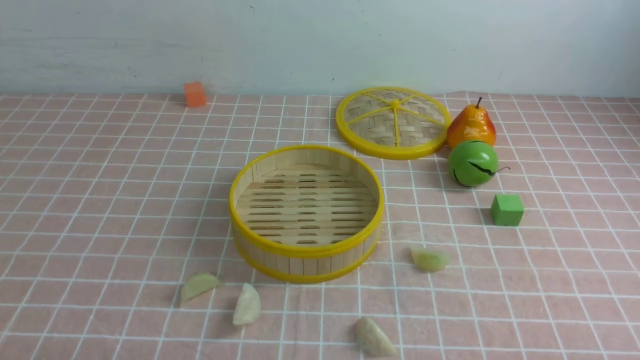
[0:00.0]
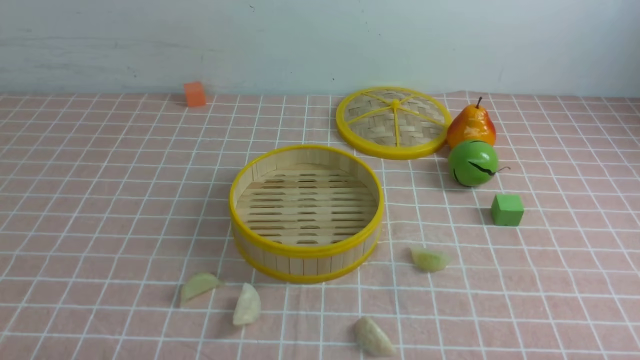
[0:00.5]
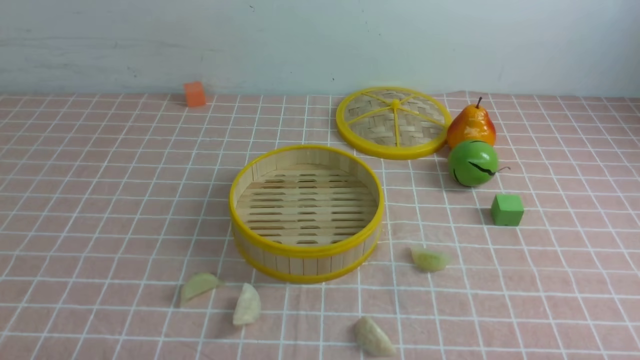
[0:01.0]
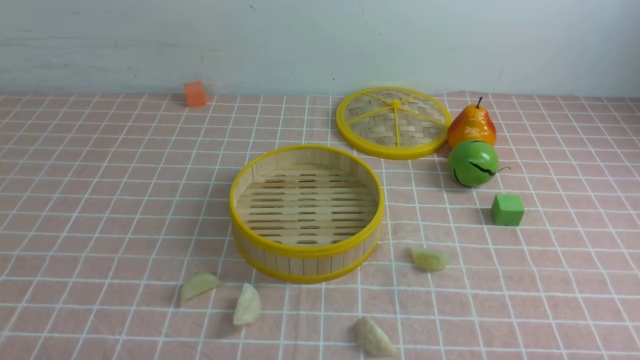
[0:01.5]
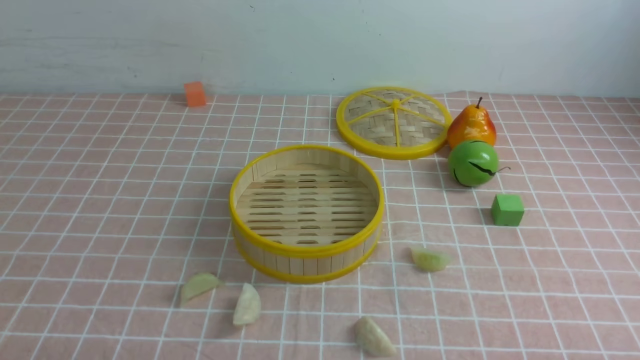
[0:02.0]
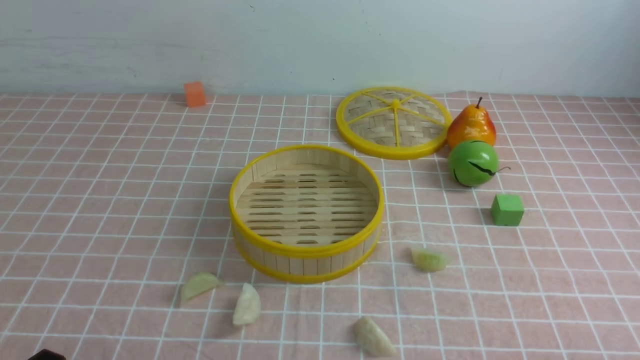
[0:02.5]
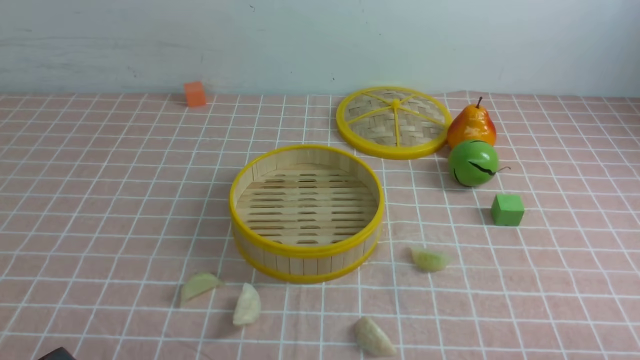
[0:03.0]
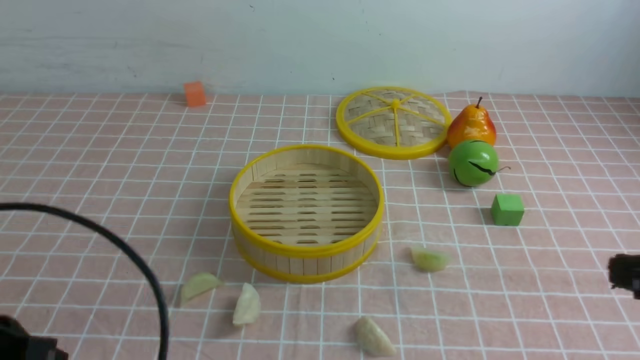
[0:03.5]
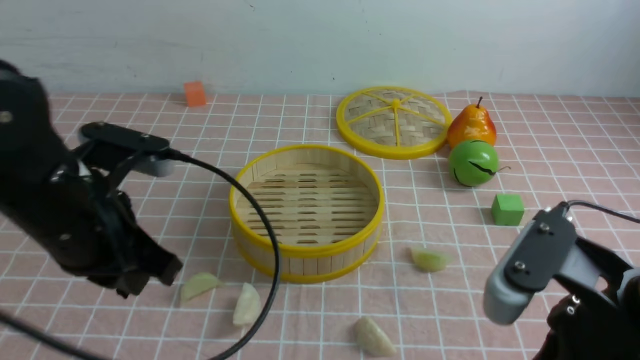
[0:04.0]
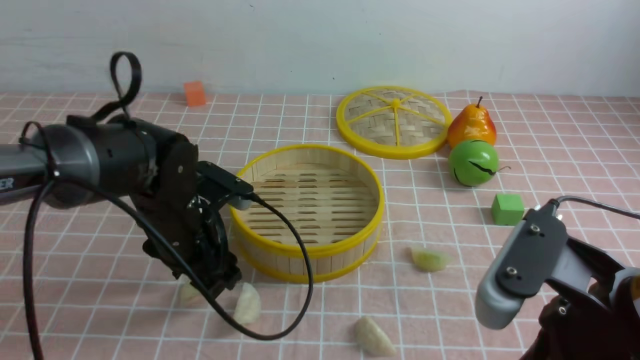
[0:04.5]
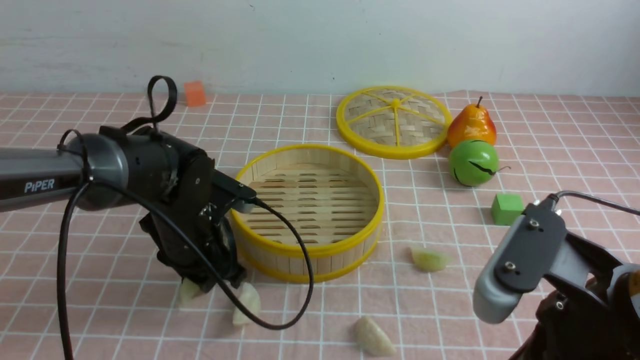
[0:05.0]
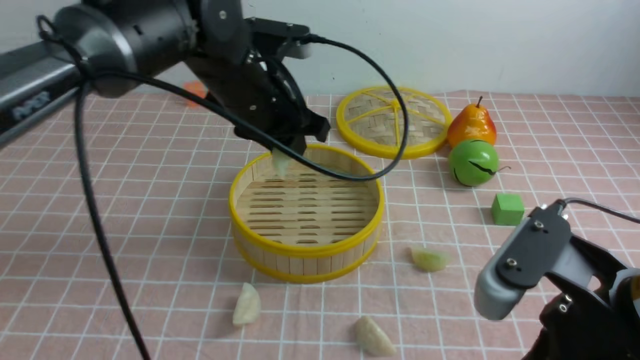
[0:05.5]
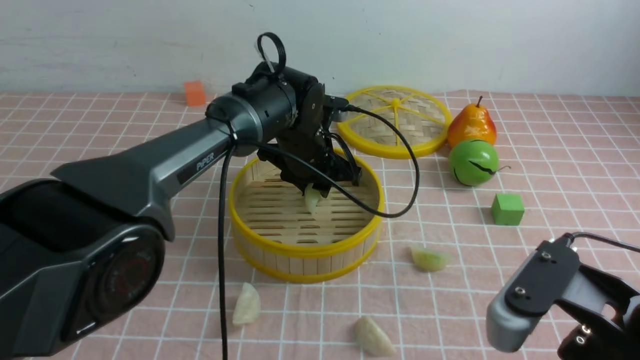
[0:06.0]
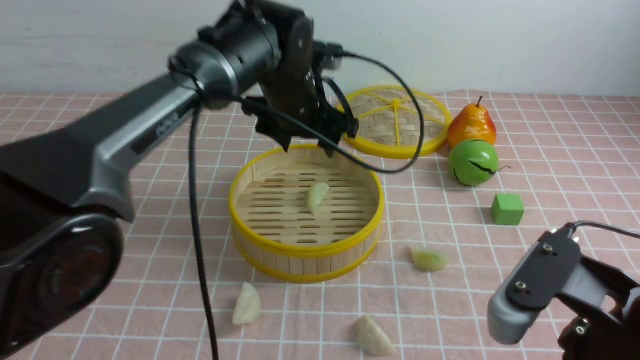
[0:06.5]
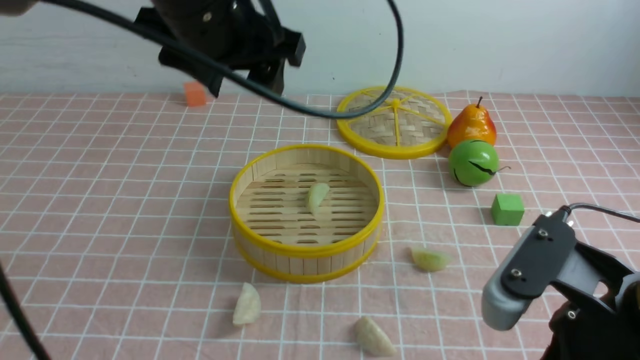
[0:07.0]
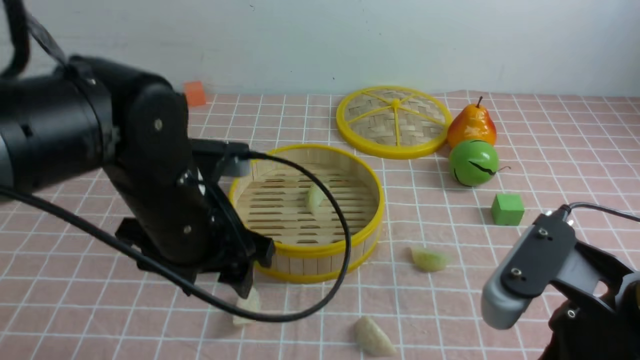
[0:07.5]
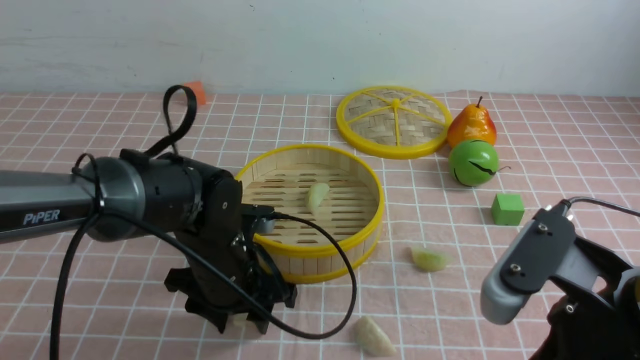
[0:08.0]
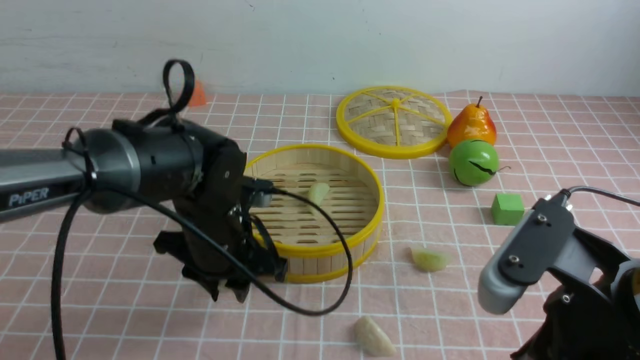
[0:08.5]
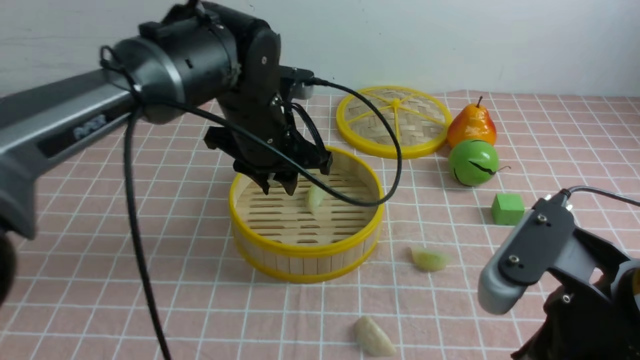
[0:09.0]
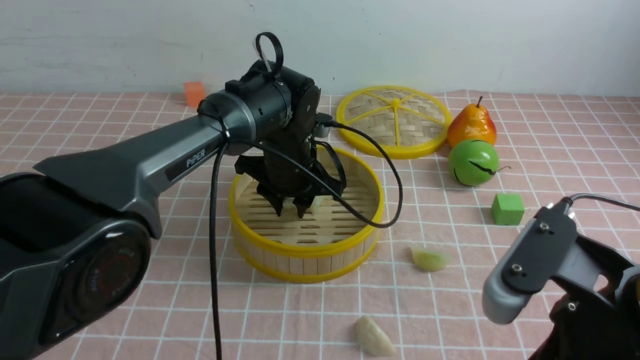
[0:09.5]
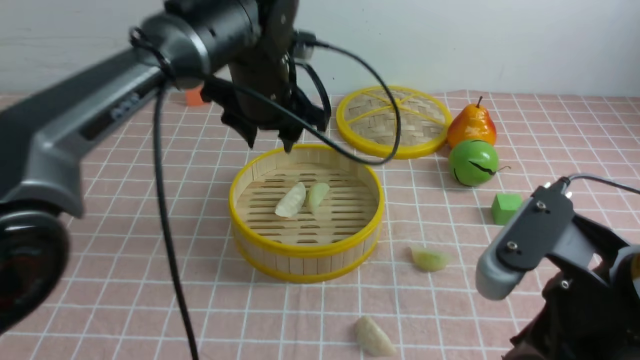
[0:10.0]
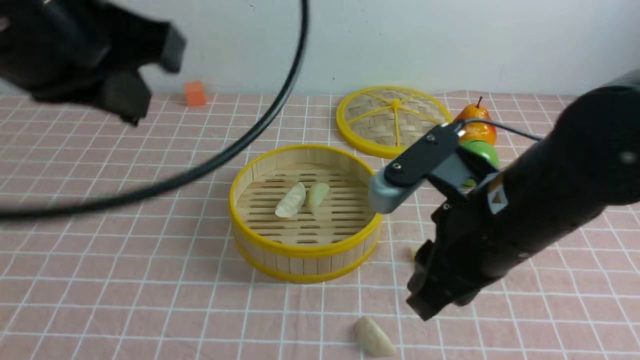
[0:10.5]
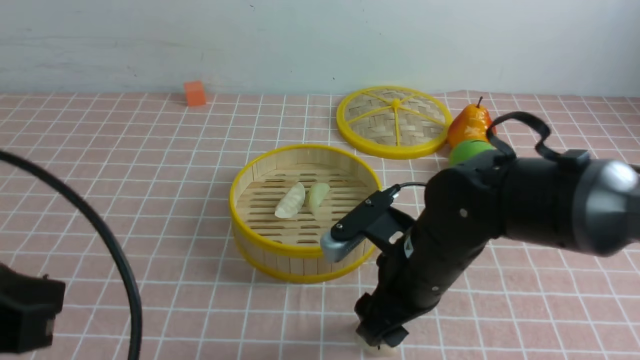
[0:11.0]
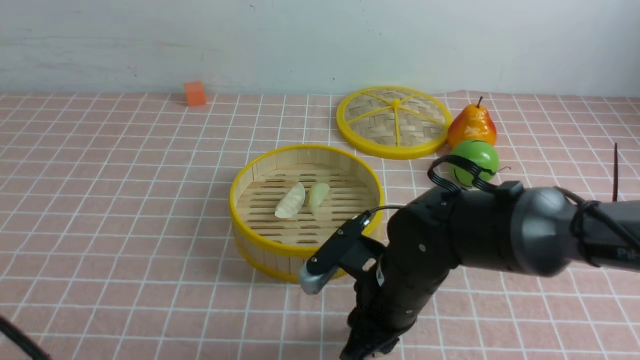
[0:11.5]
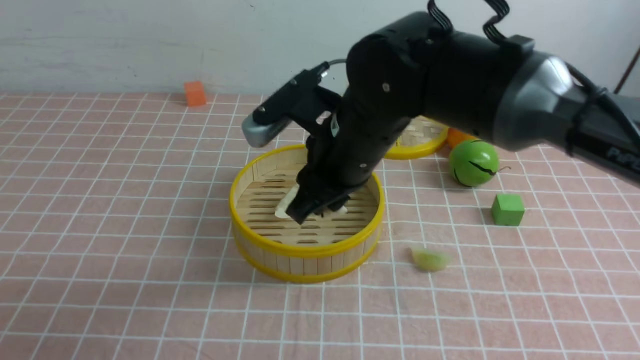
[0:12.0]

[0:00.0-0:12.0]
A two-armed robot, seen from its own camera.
Task of the whole recording: put the dumplings into the steamer on the table with the pink tablecloth.
Step, 0:00.0 to 0:05.0: use the left arm to grab a dumpling.
Step, 0:05.5 to 0:06.0: use the left arm to put the dumpling into the steamer.
Step, 0:06.5 to 0:08.0: use the left arm to grab a dumpling.
Step, 0:08.5 to 0:09.5: use the left arm to put the dumpling into the steamer.
Step, 0:10.0 to 0:11.5: use the right arm to grab a dumpling.
0:02.0 to 0:04.0: The left gripper heads forward, upward and to the right, covering about 25 cm. The right gripper is displaced upward, to the left and forward by roughly 20 cm, and closes up.
0:04.0 to 0:06.0: The left gripper shifts some 30 cm forward and to the right, and opens up.
0:06.0 to 0:08.0: The left gripper shifts roughly 15 cm backward and to the left, and moves some 20 cm upward and comes back.
0:08.0 to 0:10.0: The left gripper travels forward and upward by about 15 cm.
0:10.0 to 0:12.0: The right gripper shifts roughly 20 cm forward and to the left, and opens and closes again; the left gripper travels backward and to the left by about 40 cm, and closes its fingers.

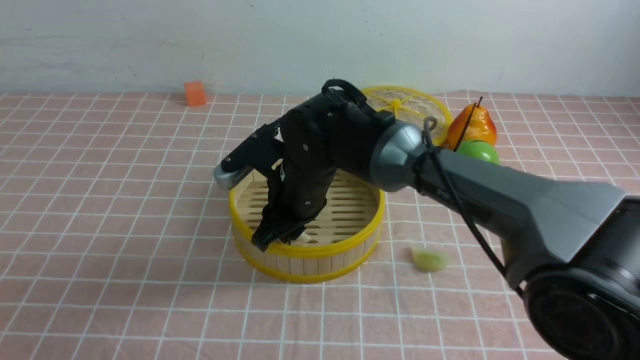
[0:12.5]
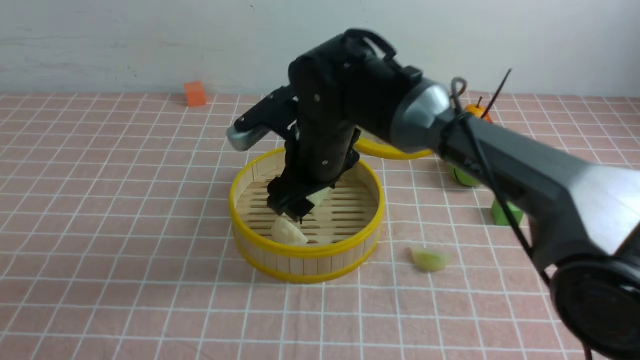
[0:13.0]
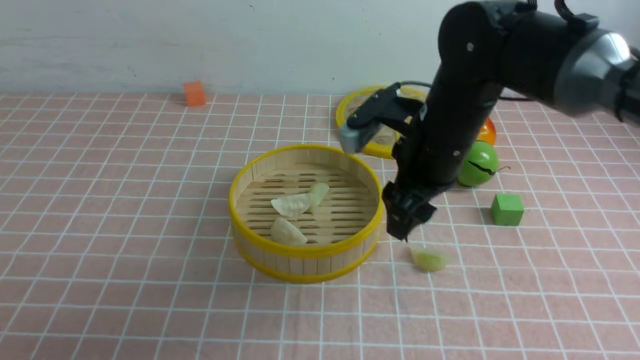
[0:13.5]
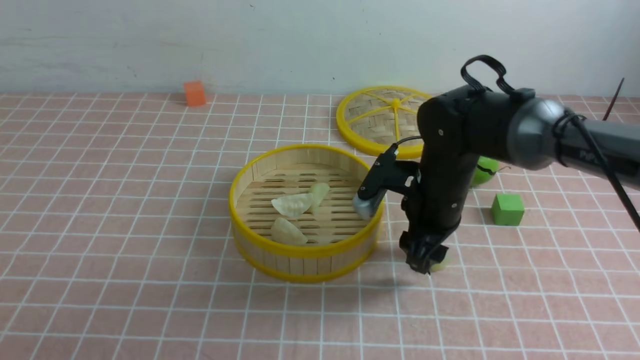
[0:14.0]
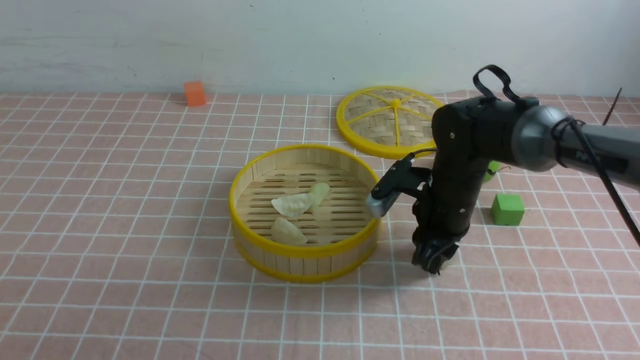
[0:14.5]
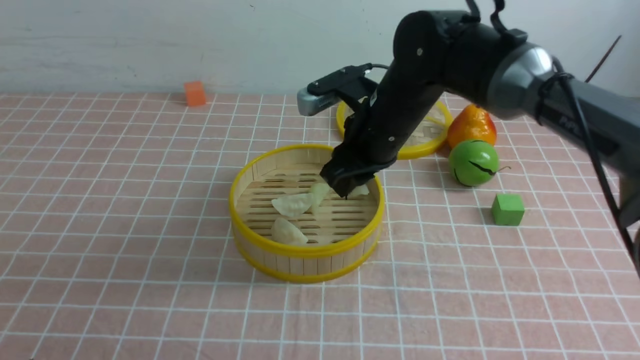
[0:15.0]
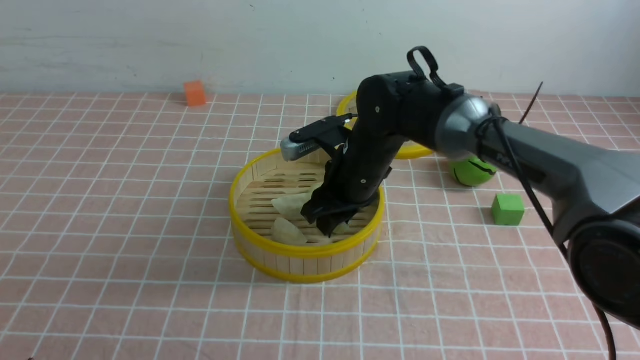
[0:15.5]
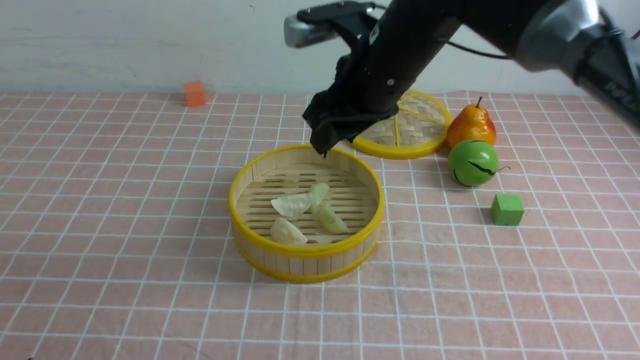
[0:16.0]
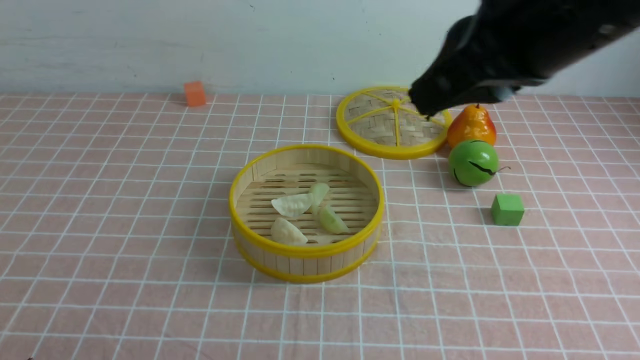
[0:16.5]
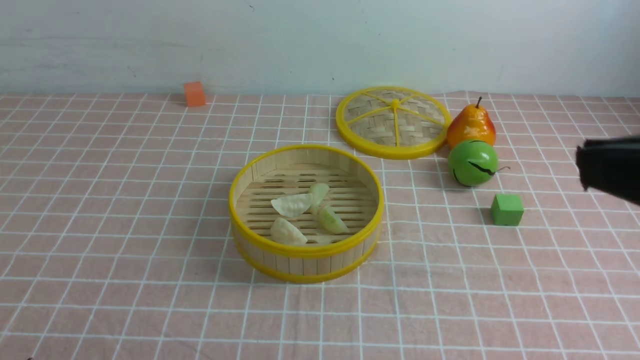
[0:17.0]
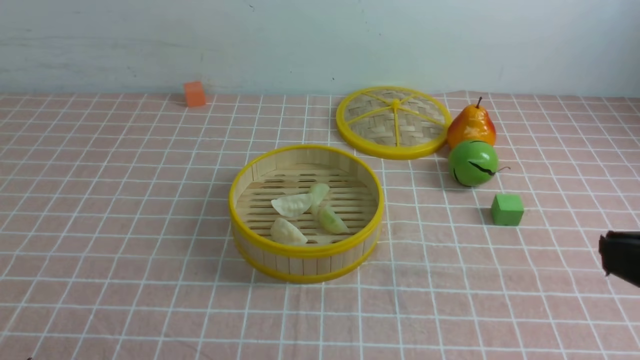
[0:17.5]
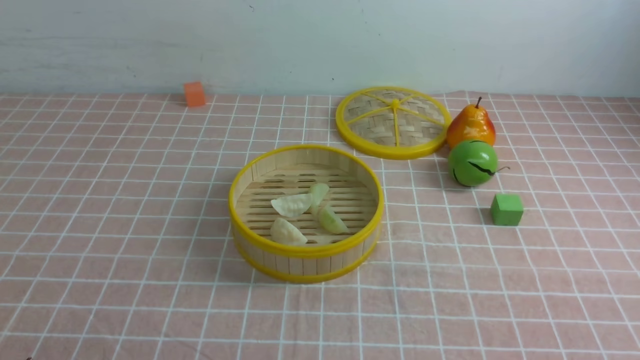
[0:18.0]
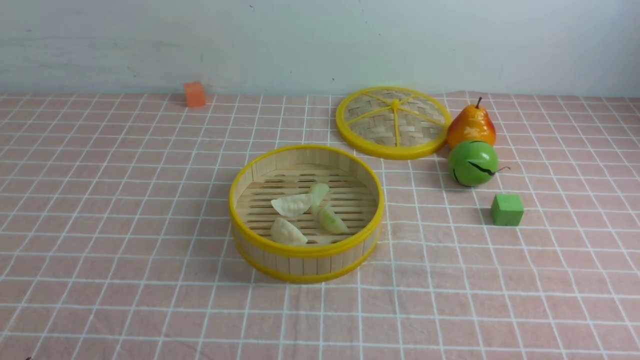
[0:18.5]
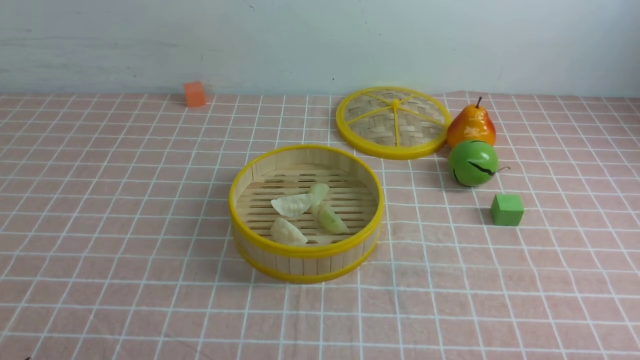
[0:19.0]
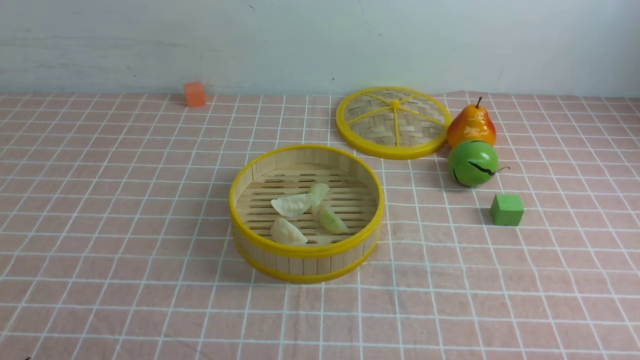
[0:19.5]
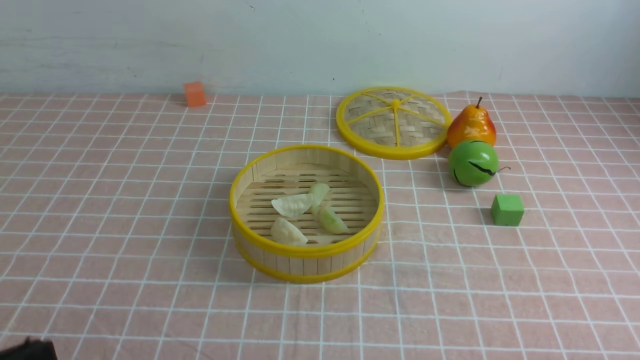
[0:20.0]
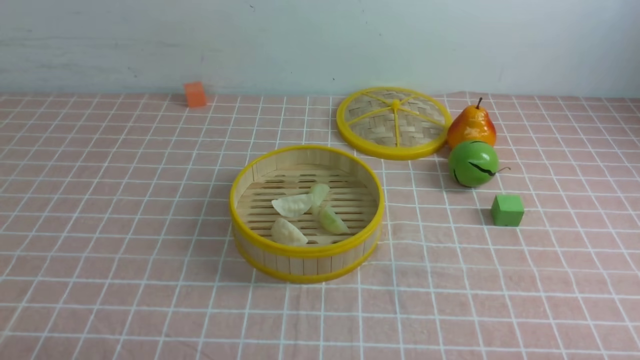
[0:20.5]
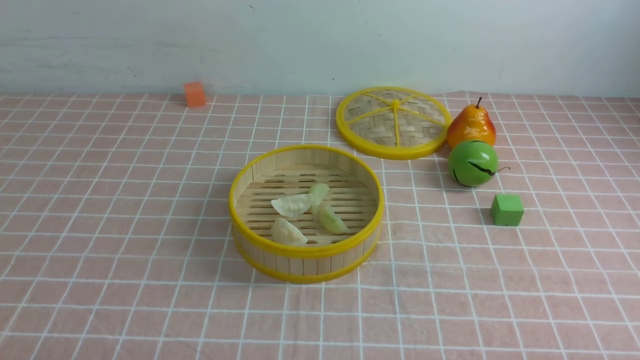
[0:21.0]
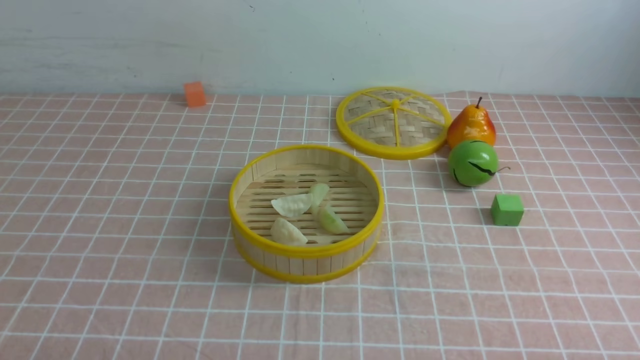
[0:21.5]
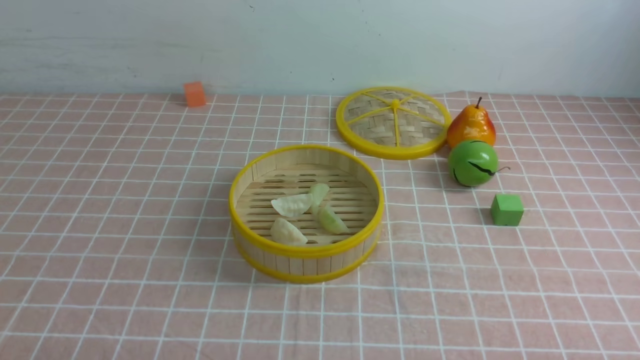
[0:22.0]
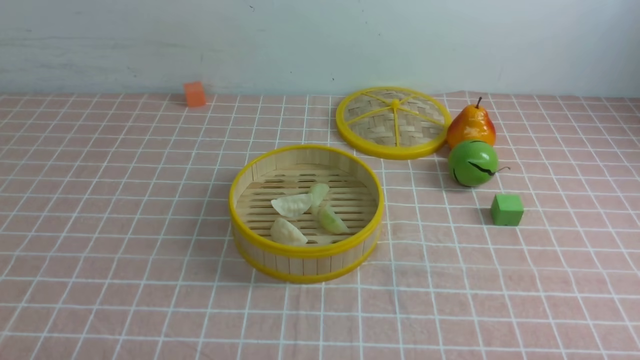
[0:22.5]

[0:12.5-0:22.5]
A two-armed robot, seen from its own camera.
Task of the whole recording: put the dumplings into the steamer on the table with the pink tablecloth.
Step, 0:13.0 to 0:14.0: use the right arm to grab a dumpling.
Step, 0:14.5 to 0:15.5: use the right arm to put the dumpling into the steamer.
0:12.5 to 0:14.5: The right gripper shifts some 15 cm to the right, and opens and closes again.
0:14.5 to 0:16.5: The right gripper swings up and down, some 25 cm each way, with 2 reversals, and closes up.
0:16.5 to 0:18.5: The right gripper is displaced downward, backward and to the right by some 40 cm.
